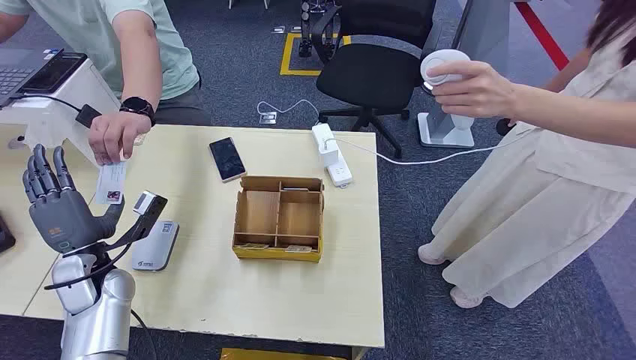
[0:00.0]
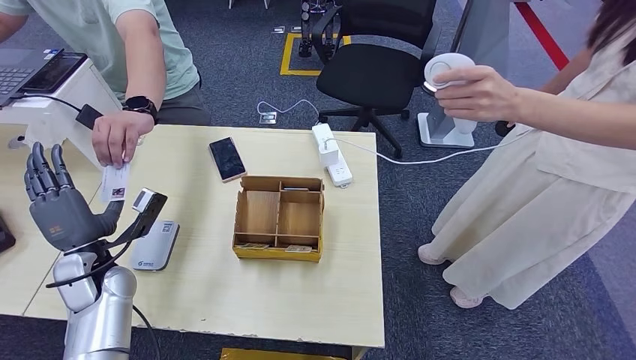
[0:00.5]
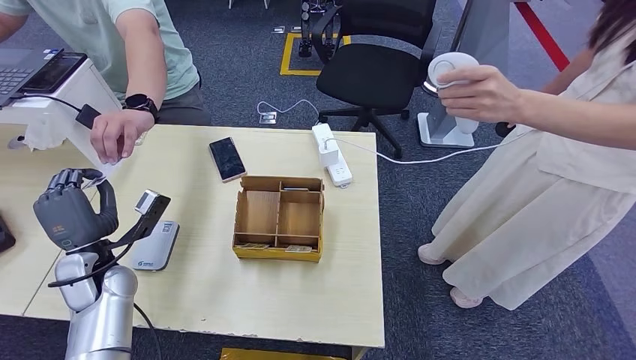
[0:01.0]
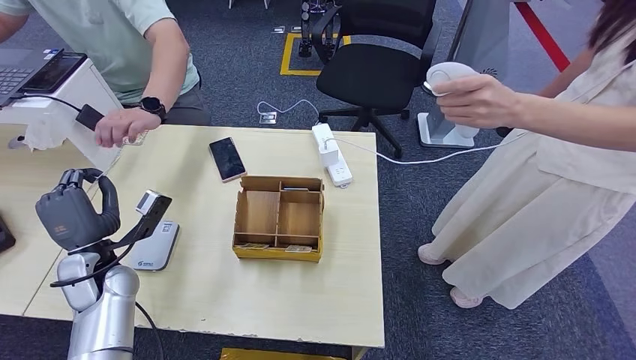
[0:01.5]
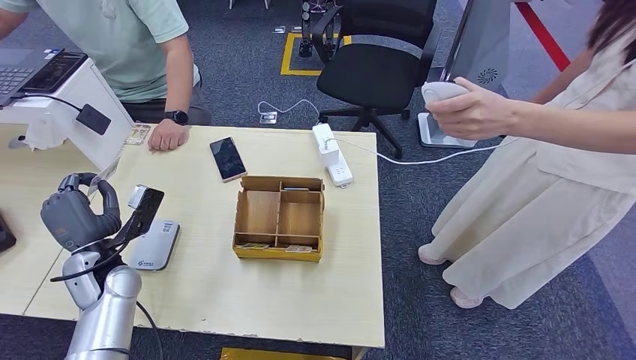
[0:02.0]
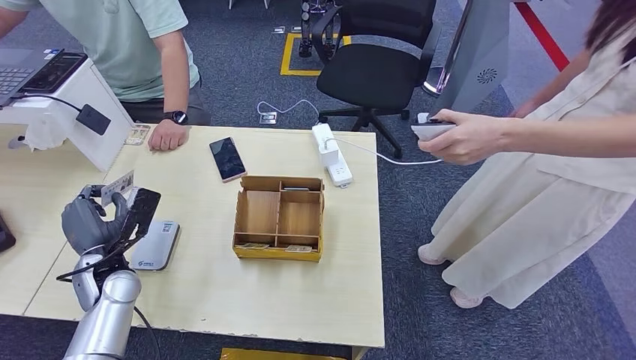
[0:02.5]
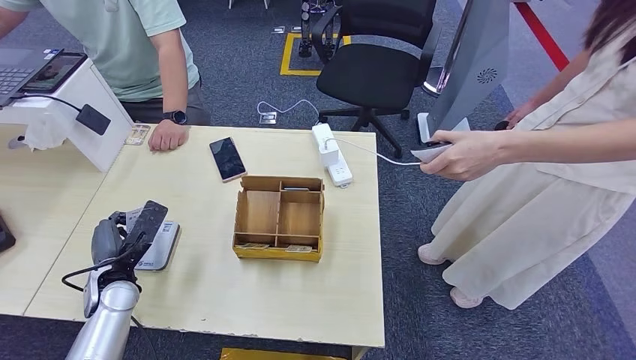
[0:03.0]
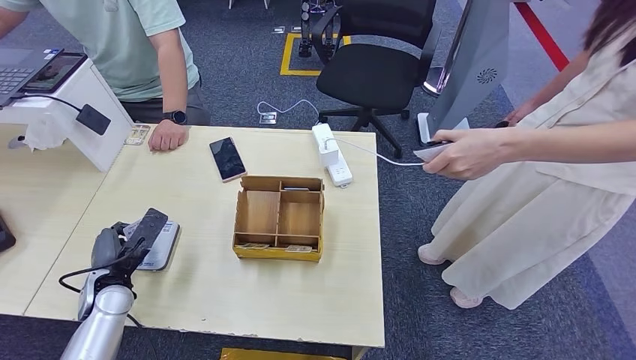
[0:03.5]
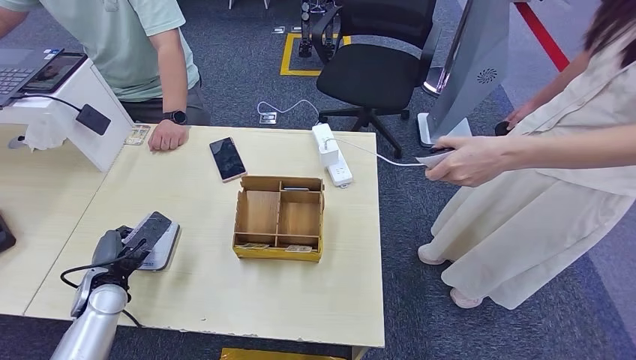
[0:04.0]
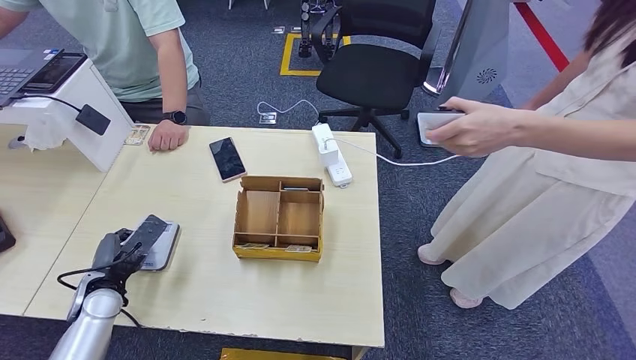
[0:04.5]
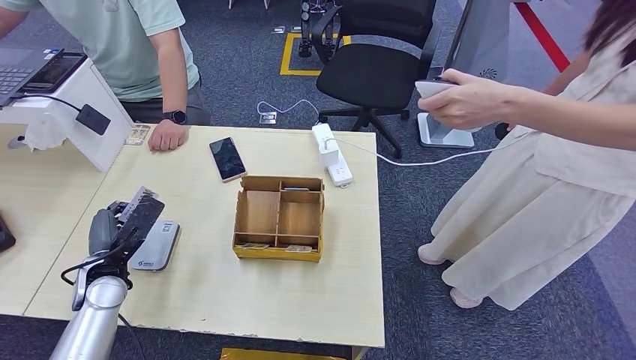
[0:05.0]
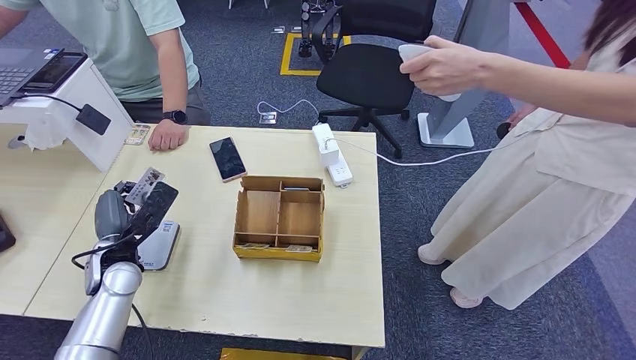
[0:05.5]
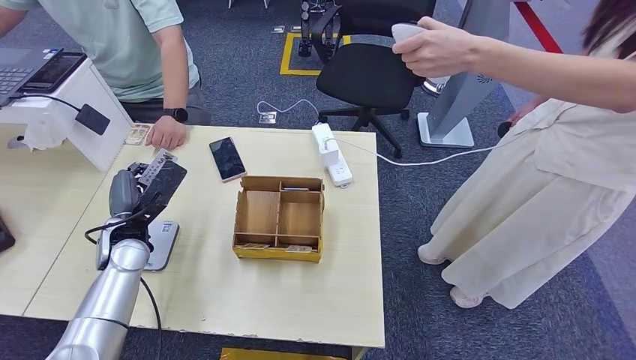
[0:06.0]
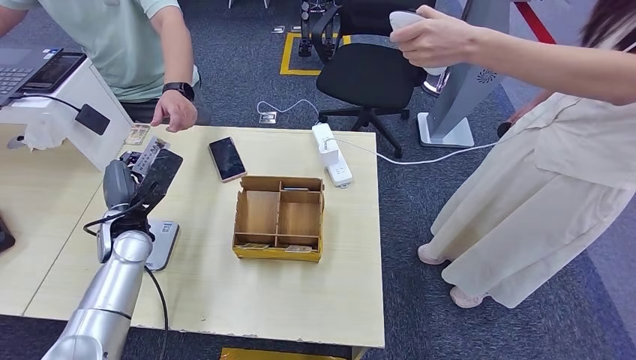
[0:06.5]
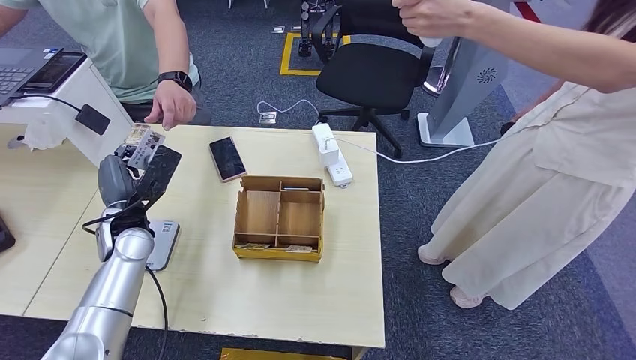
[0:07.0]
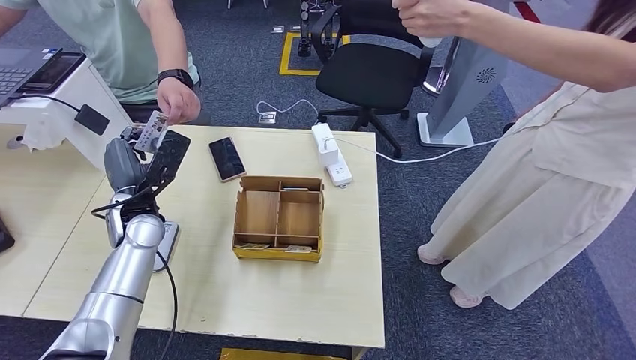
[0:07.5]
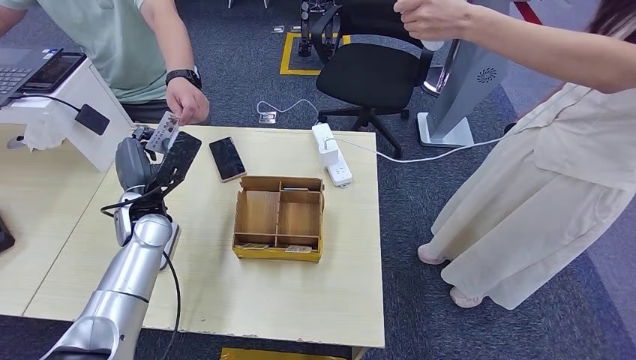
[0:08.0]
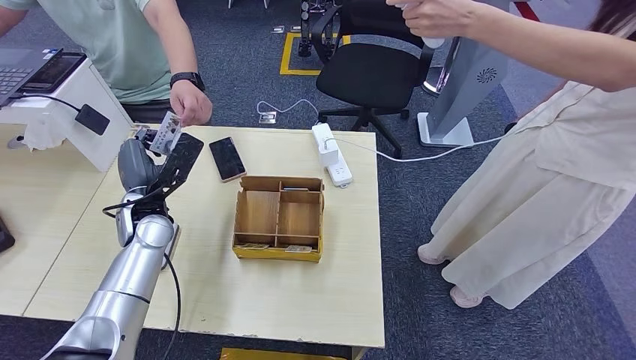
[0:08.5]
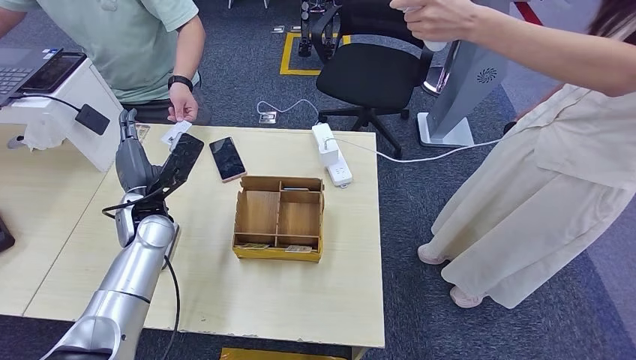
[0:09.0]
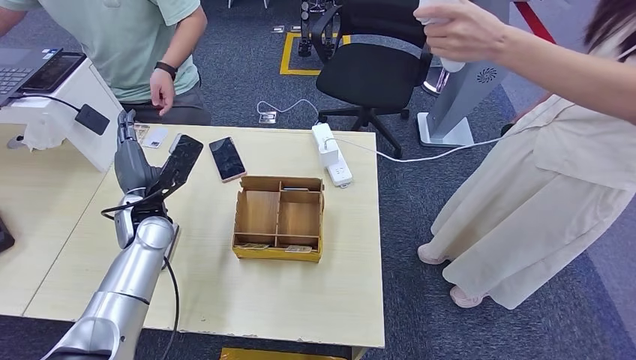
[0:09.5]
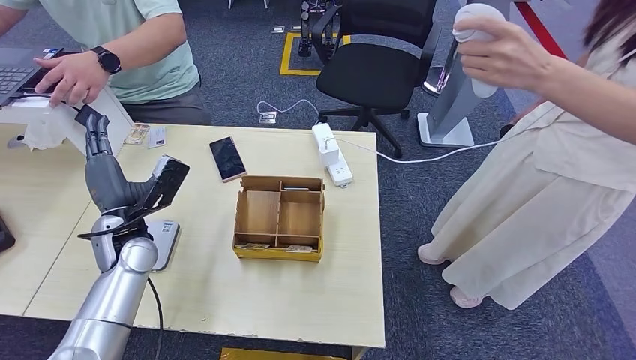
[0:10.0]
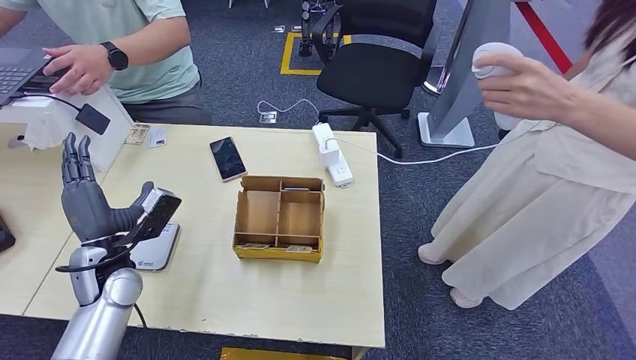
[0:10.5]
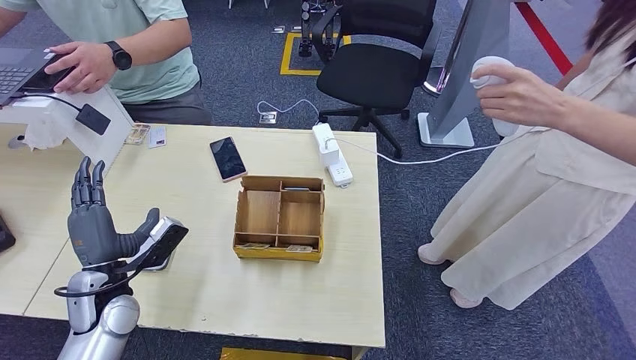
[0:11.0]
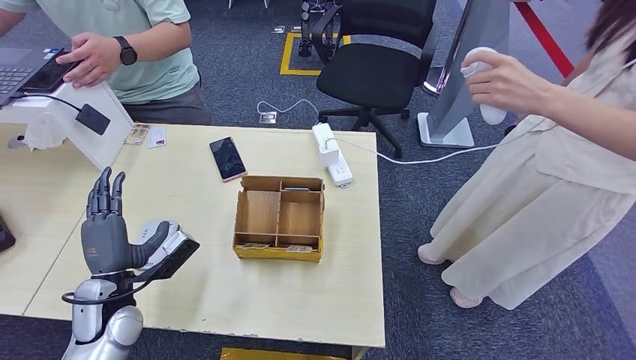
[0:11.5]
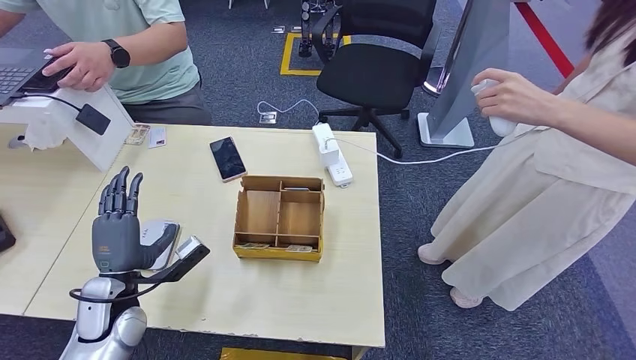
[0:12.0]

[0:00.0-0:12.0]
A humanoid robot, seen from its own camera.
Step, 0:00.0 to 0:01.5: Take the ID card from the person's hand.
Step, 0:02.0 to 0:04.5: Place the ID card on the card reader.
Step, 0:05.0 to 0:08.0: Hand the ID card to the person.
0:02.0 to 0:04.0: The left hand shifts roughly 5 cm downward.
0:04.0 to 0:06.0: The left hand is displaced upward and forward by about 10 cm.
0:06.0 to 0:08.0: The left hand changes place by about 5 cm.
0:08.0 to 0:10.0: The hands move only a little.
0:10.0 to 0:12.0: The left hand shifts approximately 10 cm backward and downward.

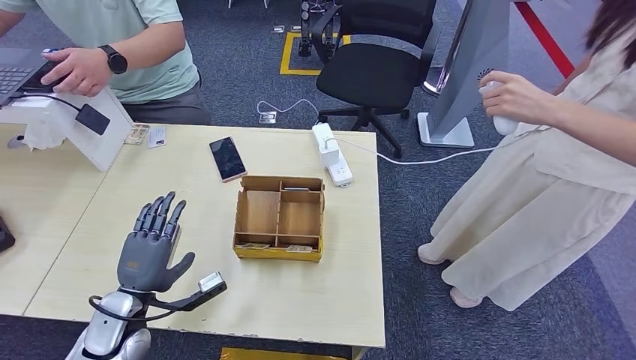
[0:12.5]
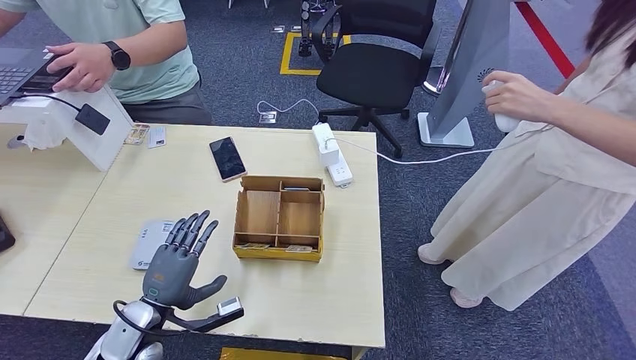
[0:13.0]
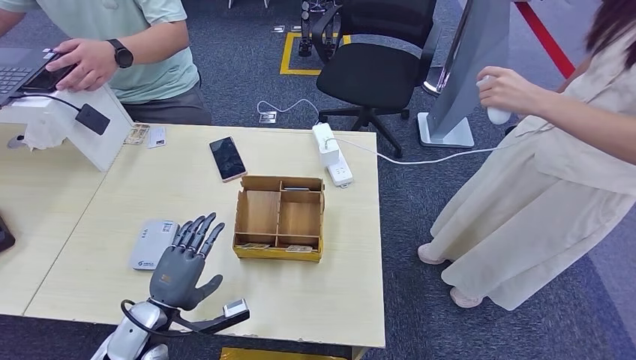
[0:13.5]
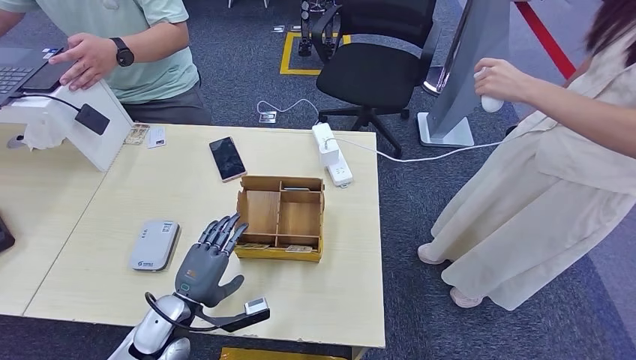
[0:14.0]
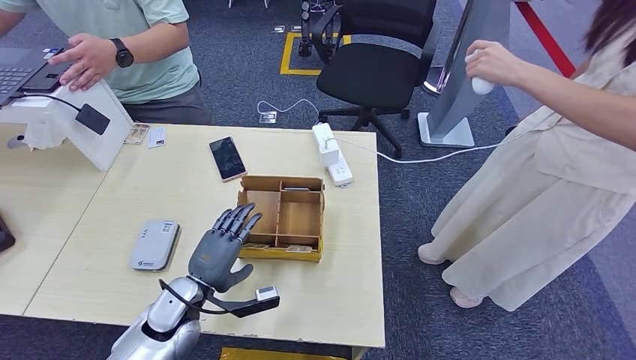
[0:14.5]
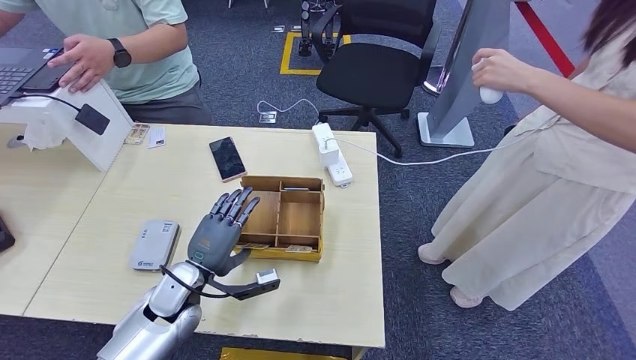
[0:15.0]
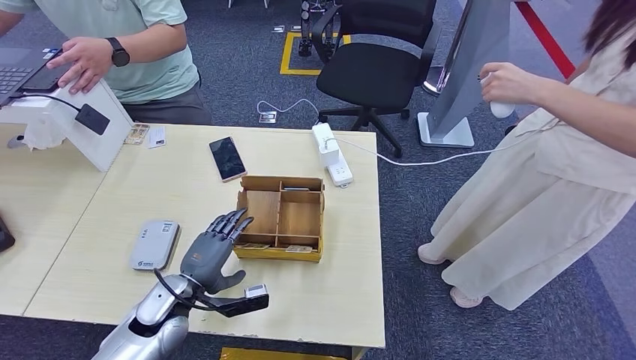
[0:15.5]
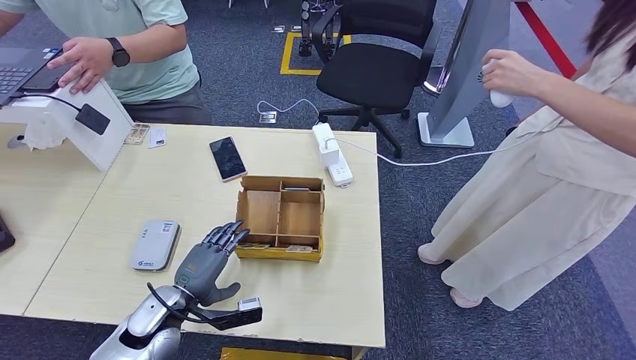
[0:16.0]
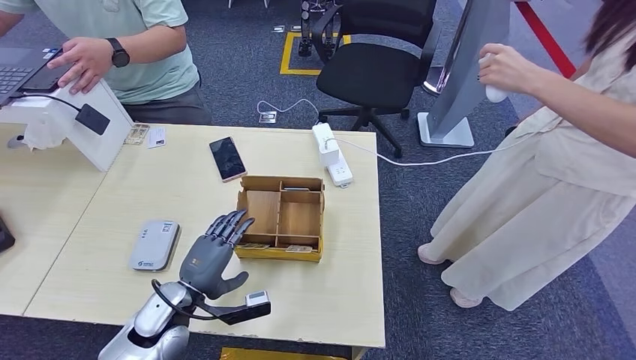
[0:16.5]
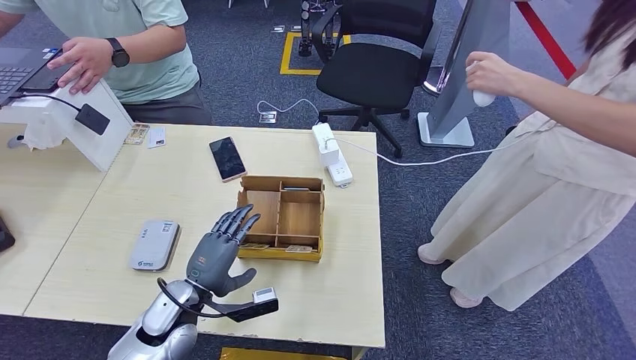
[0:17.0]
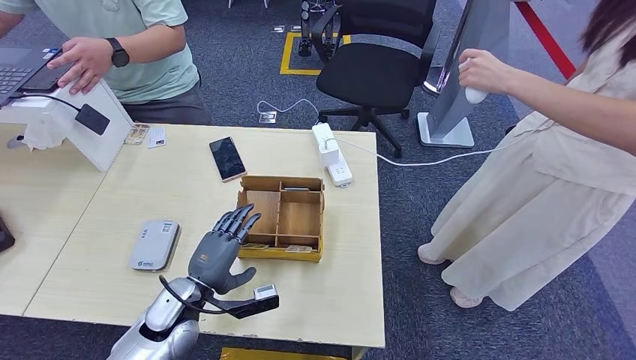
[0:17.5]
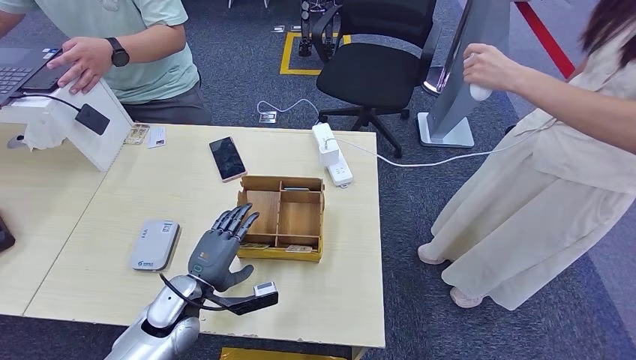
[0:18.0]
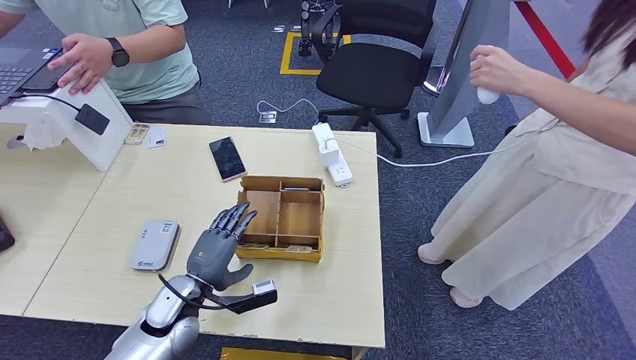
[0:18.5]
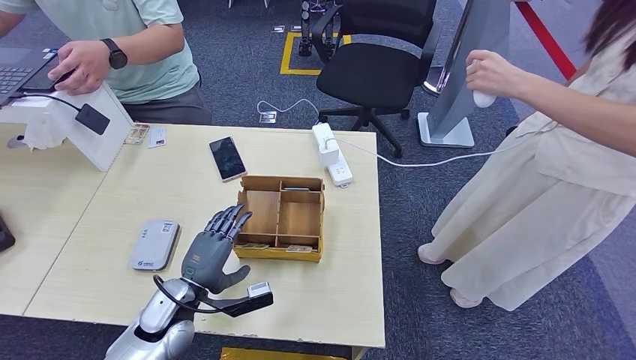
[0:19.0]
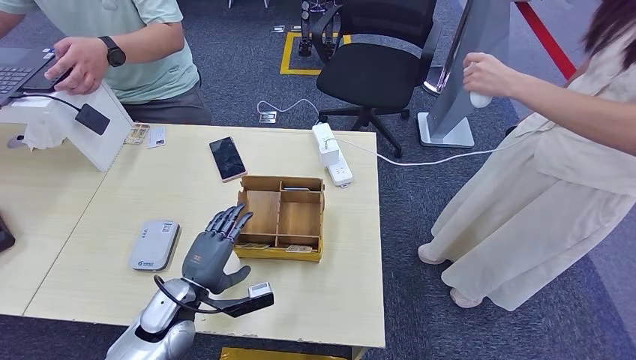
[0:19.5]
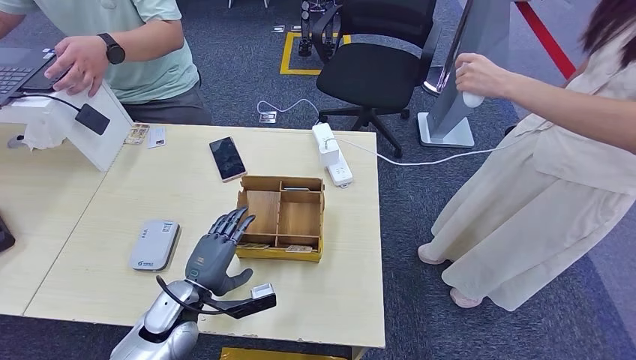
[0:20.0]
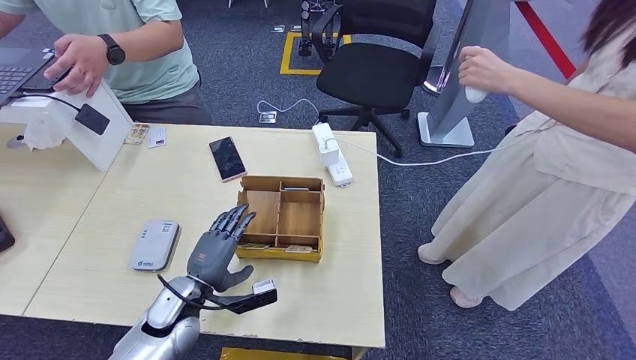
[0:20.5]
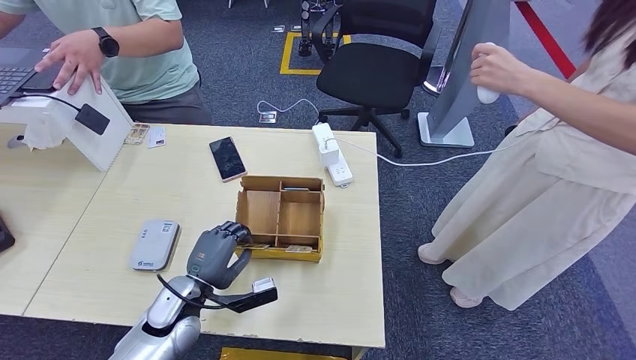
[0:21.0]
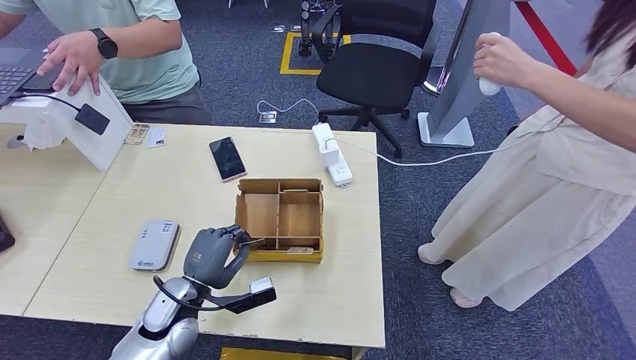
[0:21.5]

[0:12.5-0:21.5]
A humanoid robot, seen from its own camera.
0:12.5 to 0:14.5: The left hand travels to the right by approximately 10 cm.
0:14.5 to 0:19.5: There are only small adjustments of the hands.
0:19.5 to 0:21.5: The two hands keep their place.
